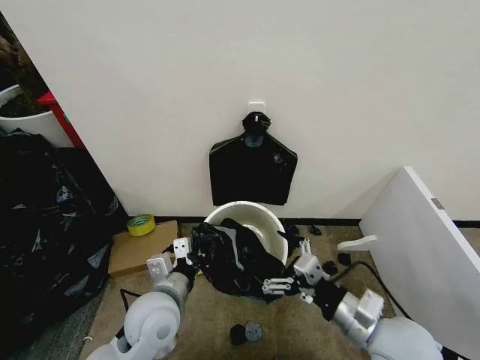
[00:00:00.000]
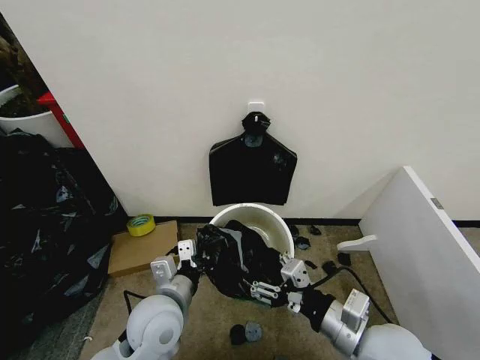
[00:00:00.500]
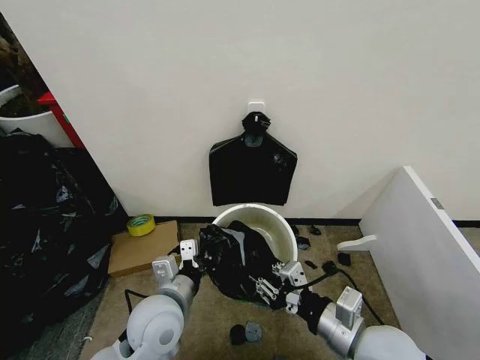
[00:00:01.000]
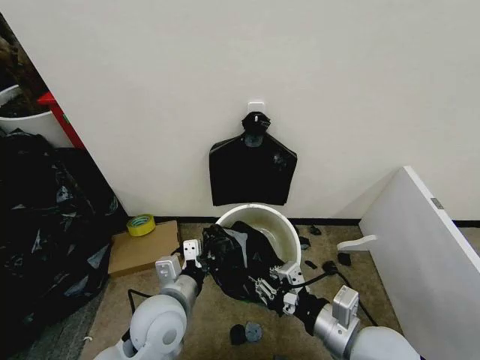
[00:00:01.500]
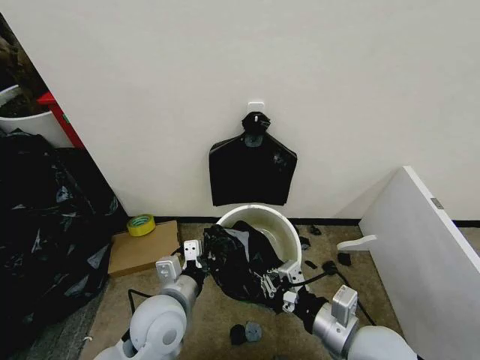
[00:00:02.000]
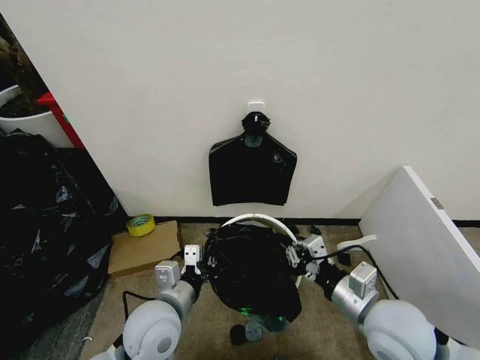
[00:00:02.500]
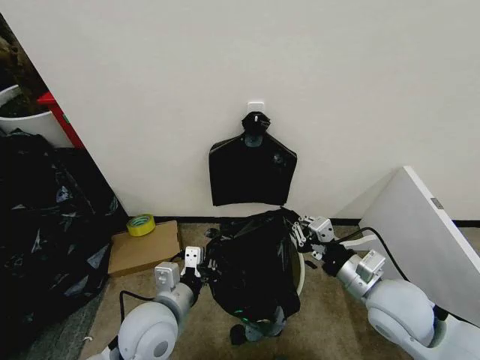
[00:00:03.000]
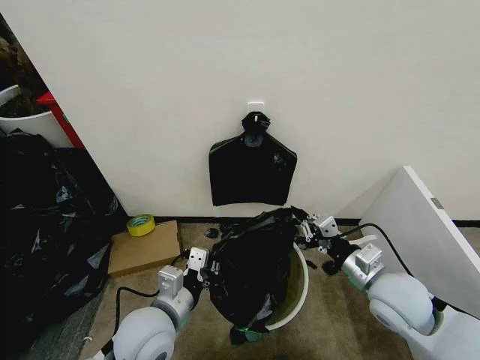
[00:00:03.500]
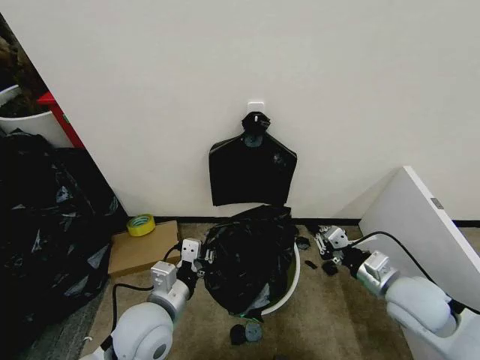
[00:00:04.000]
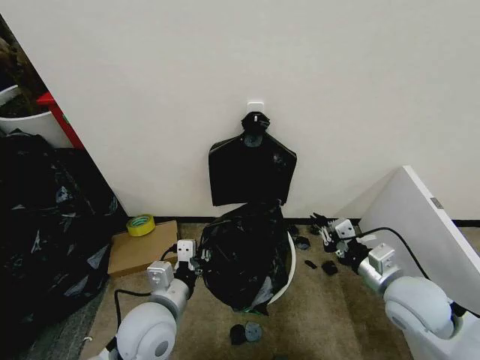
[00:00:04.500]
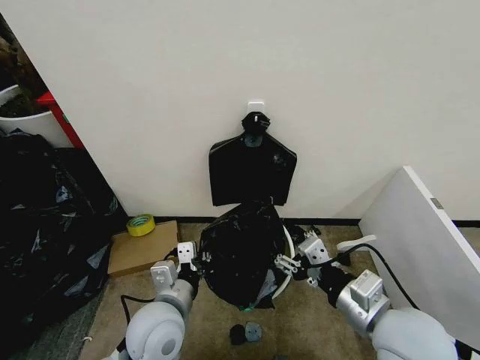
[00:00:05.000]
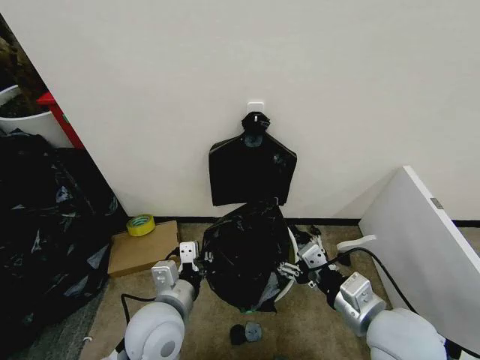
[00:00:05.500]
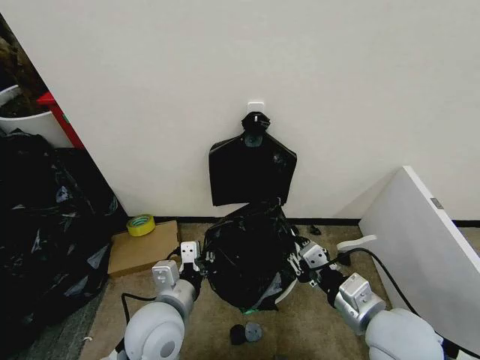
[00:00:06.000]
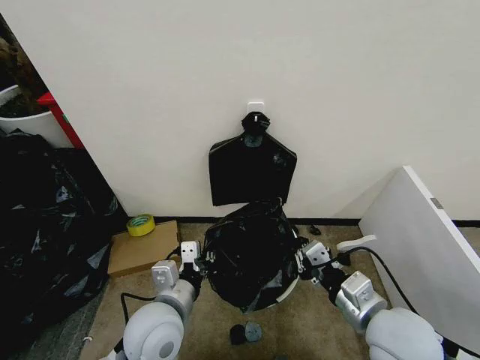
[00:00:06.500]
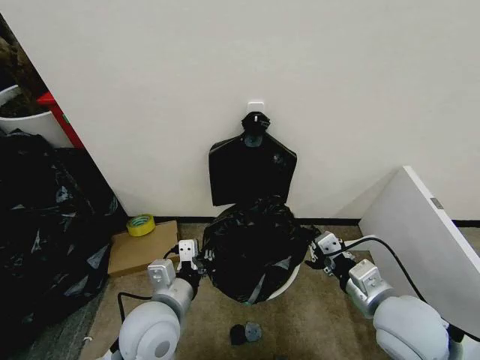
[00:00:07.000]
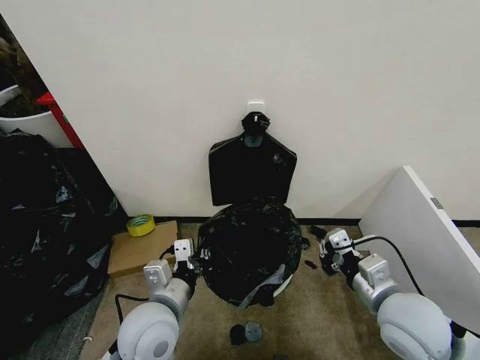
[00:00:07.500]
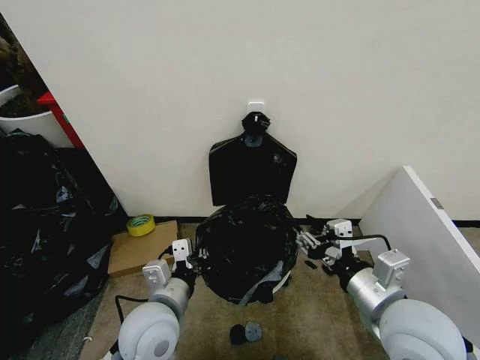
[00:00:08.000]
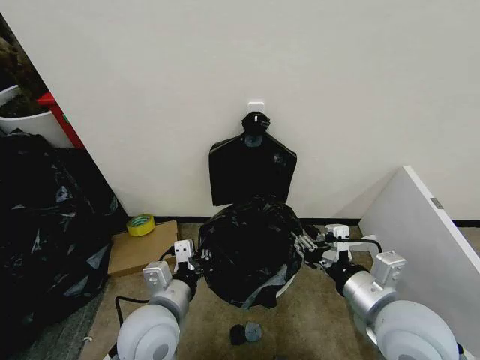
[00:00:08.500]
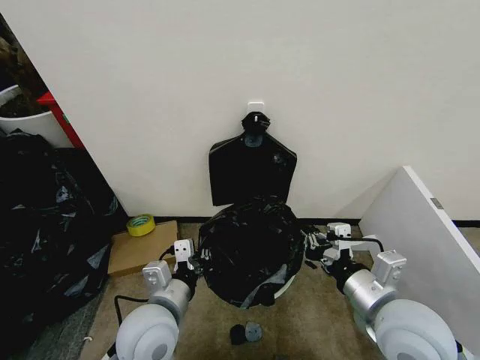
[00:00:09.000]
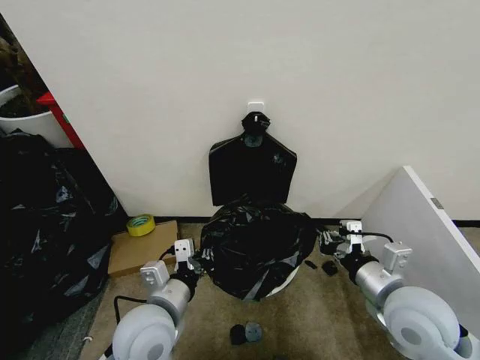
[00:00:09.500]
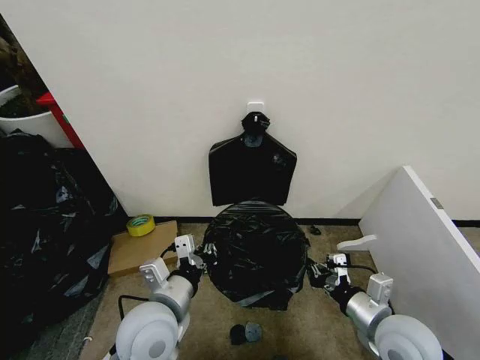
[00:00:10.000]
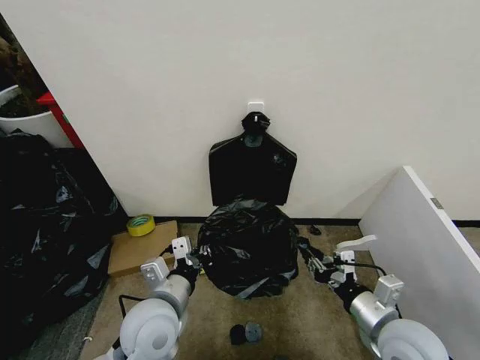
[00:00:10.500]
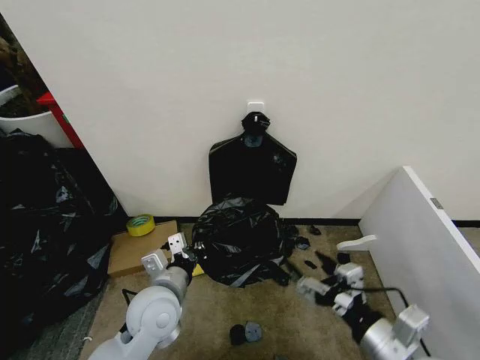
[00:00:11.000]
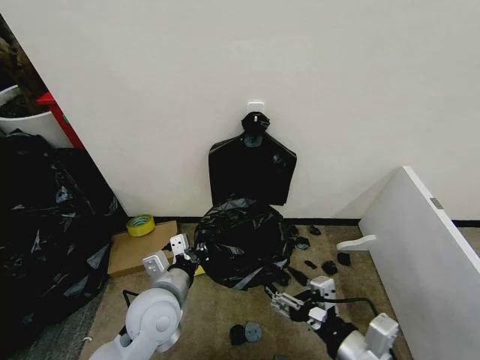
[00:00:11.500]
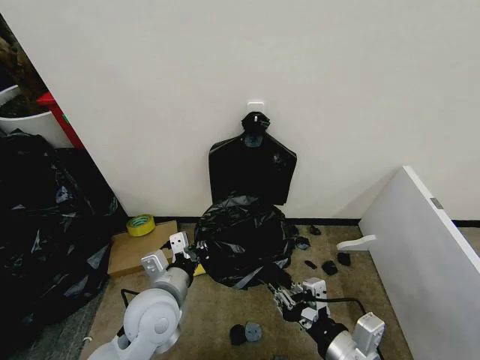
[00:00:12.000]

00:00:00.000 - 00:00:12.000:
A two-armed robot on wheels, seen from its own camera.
Task of the whole recording: Place the garbage bag over the trash bin.
00:00:00.000 - 00:00:02.000: The right gripper closes up.
00:00:02.000 - 00:00:04.000: The right gripper heads to the right and forward, covering some 15 cm.
00:00:04.000 - 00:00:06.000: The right gripper is displaced to the left and backward by approximately 10 cm, and opens, then closes again.
00:00:08.000 - 00:00:10.000: The right gripper heads downward, covering roughly 10 cm, and closes.
00:00:10.000 - 00:00:12.000: The right gripper heads backward and to the left, covering about 10 cm, and opens, then closes once more.

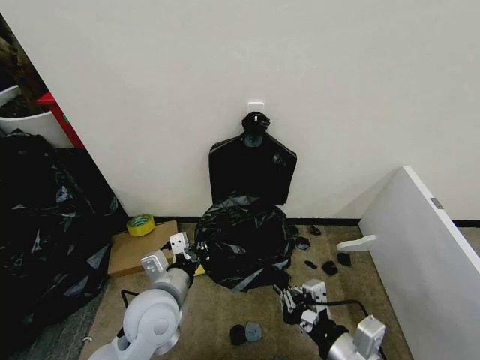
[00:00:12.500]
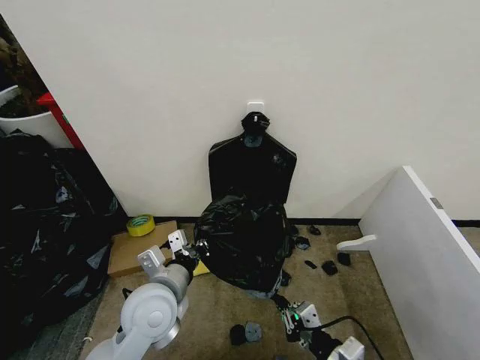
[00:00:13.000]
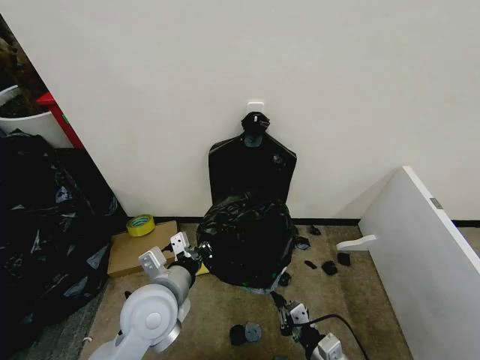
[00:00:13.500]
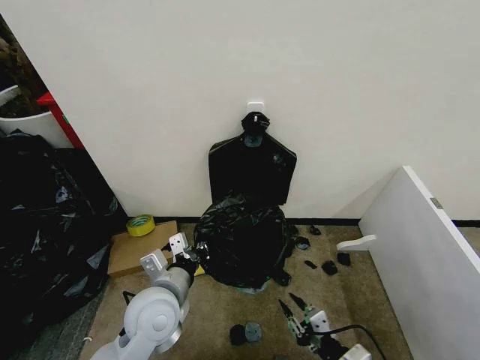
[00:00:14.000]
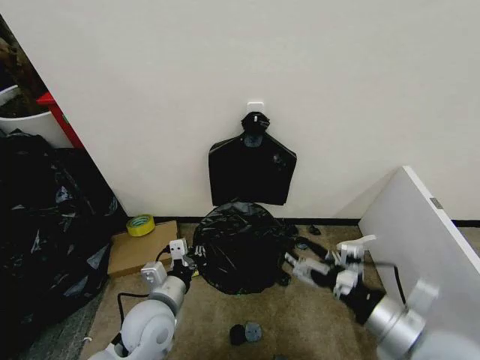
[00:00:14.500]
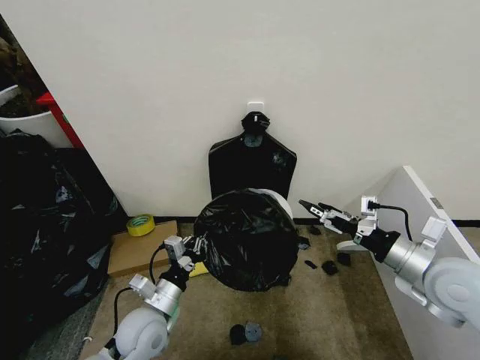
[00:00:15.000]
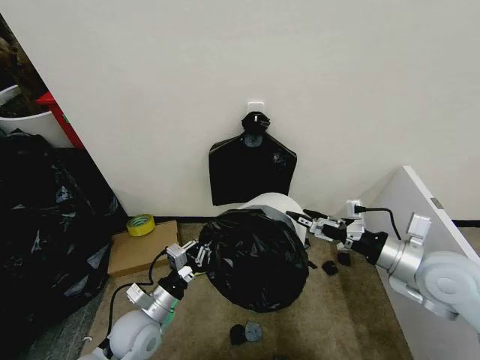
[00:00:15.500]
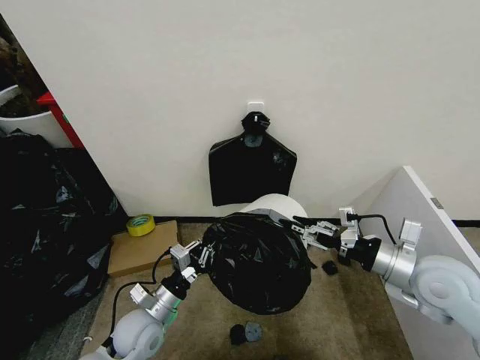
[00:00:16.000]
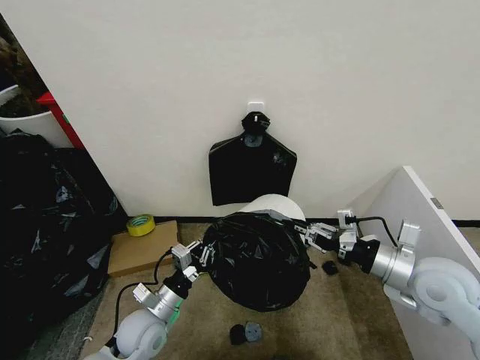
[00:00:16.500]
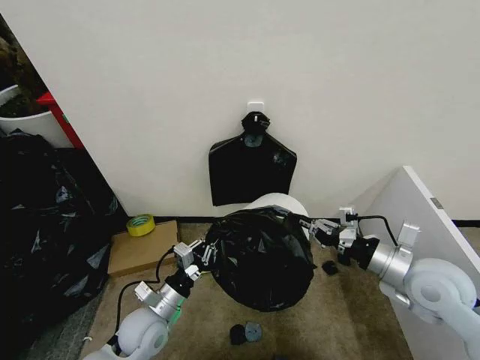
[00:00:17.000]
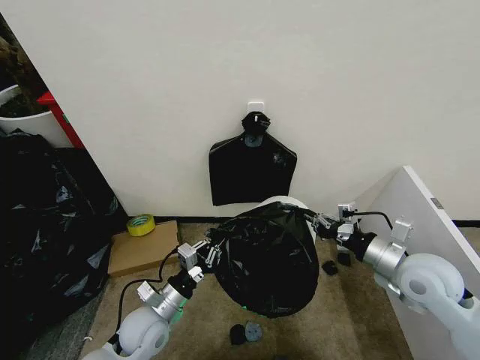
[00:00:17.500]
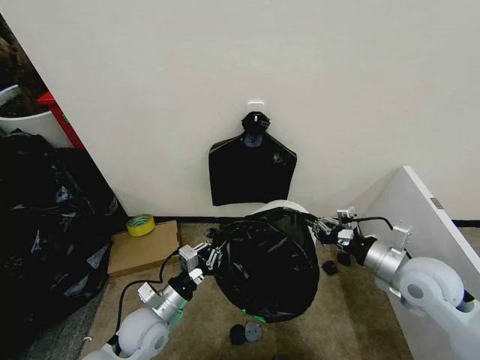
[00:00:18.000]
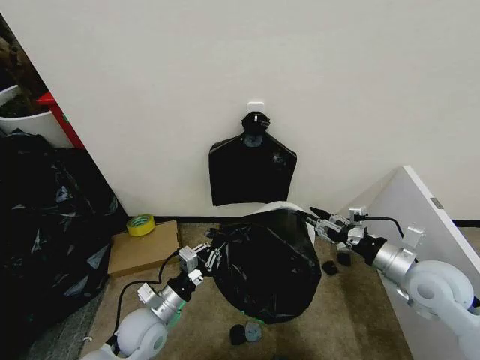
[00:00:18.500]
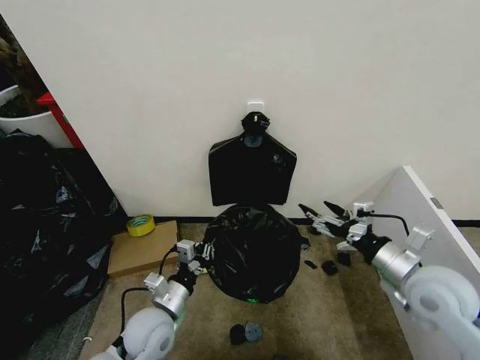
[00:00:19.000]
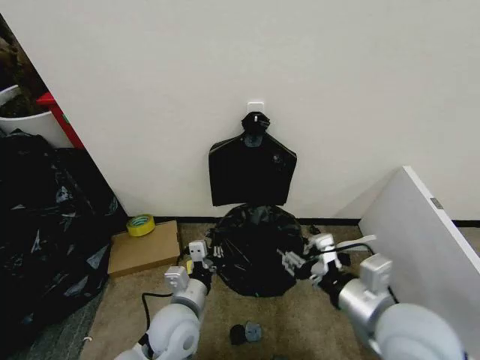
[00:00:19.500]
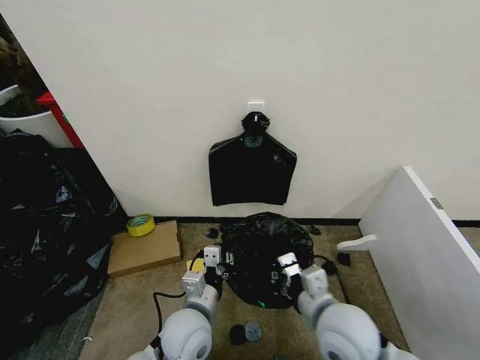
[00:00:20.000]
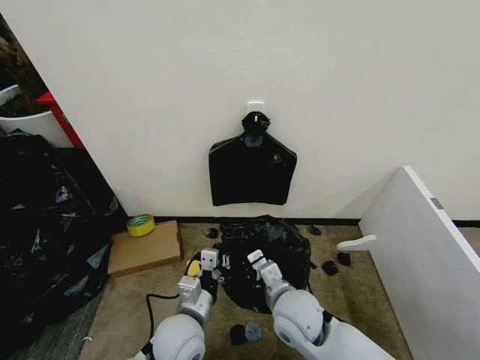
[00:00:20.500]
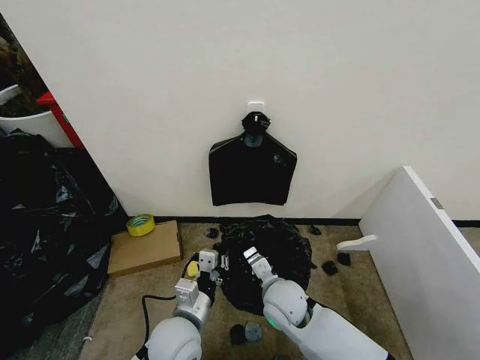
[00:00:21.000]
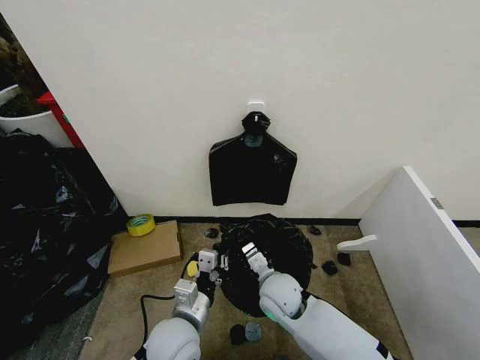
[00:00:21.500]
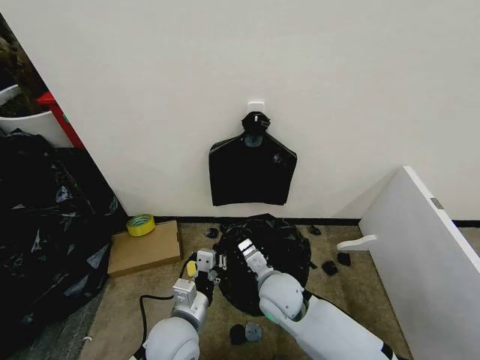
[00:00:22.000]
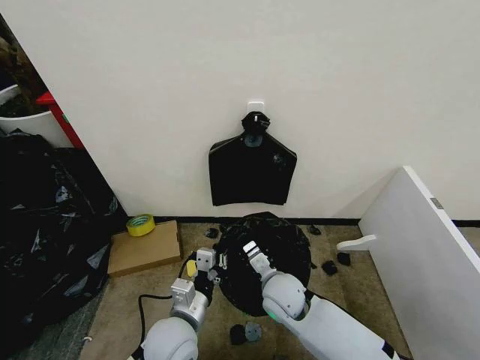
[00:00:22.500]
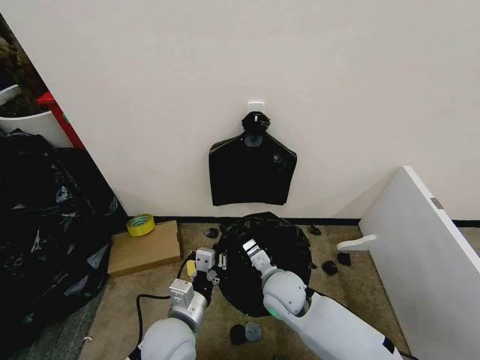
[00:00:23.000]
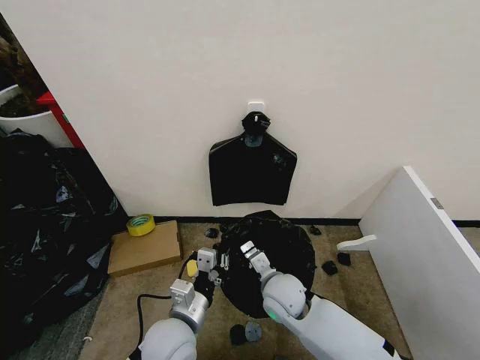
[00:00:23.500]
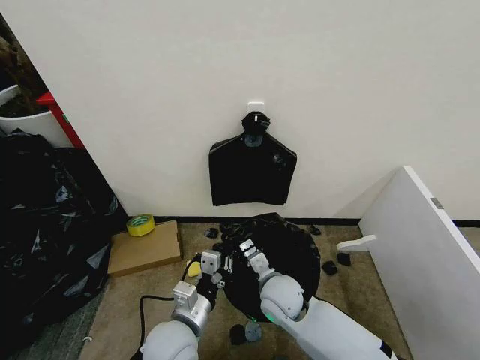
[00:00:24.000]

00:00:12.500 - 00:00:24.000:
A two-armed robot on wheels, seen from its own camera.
Task of the whole recording: Place the garbage bag over the trash bin.
00:00:12.500 - 00:00:14.500: The right gripper is displaced to the right by roughly 5 cm, travels downward and back again, approximately 15 cm each way, and opens.
00:00:14.500 - 00:00:16.500: The left gripper shifts about 5 cm downward. Meanwhile the right gripper is displaced forward and to the right by some 15 cm, and closes.
00:00:16.500 - 00:00:18.500: The right gripper opens.
00:00:18.500 - 00:00:20.000: The left gripper travels to the right by about 10 cm, while the right gripper shifts approximately 20 cm to the left and backward, and closes up.
00:00:20.000 - 00:00:22.000: The right gripper moves to the left, forward and downward, about 15 cm.
00:00:22.000 - 00:00:24.000: There are only small adjustments of the grippers.

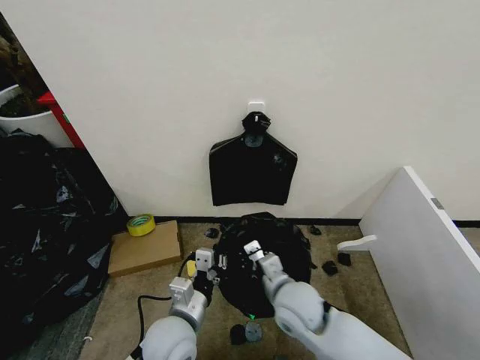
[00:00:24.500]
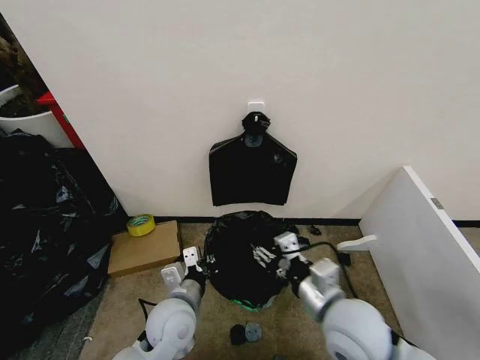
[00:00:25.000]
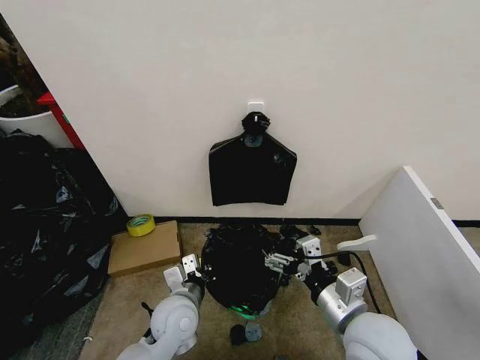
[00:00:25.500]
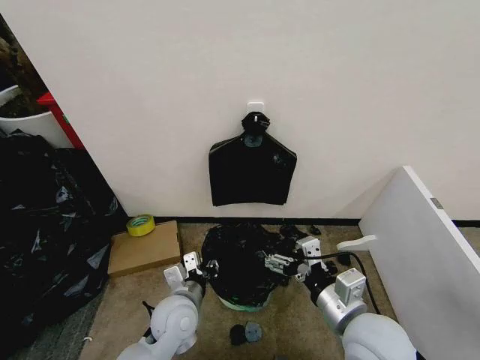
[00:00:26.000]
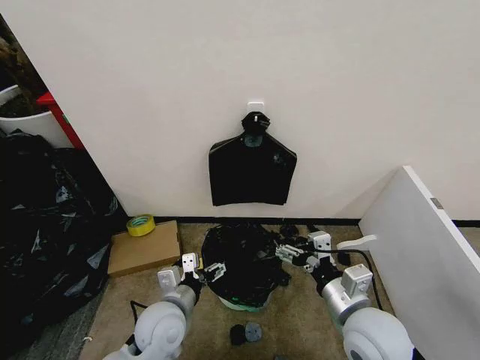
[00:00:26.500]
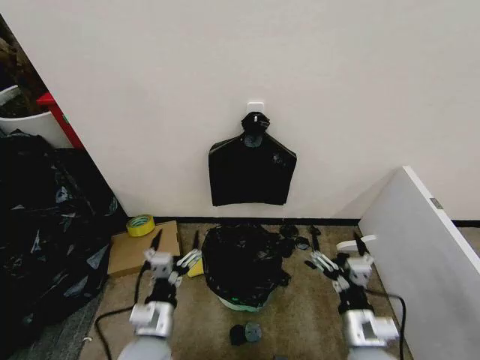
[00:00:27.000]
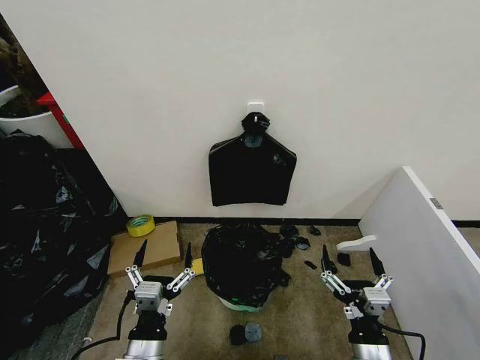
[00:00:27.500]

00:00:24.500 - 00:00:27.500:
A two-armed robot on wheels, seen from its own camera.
Task of the whole recording: Place the garbage bag over the trash bin.
00:00:24.500 - 00:00:26.000: The left gripper heads forward, covering roughly 5 cm, and opens up, while the right gripper moves to the right, backward and upward, some 15 cm, and opens.
00:00:26.000 - 00:00:27.500: The right gripper travels downward and backward by roughly 15 cm. The left gripper travels backward by about 15 cm, and opens its fingers.
